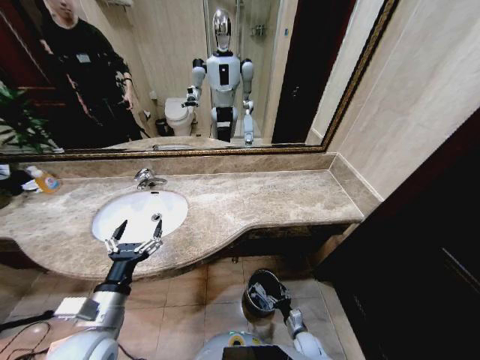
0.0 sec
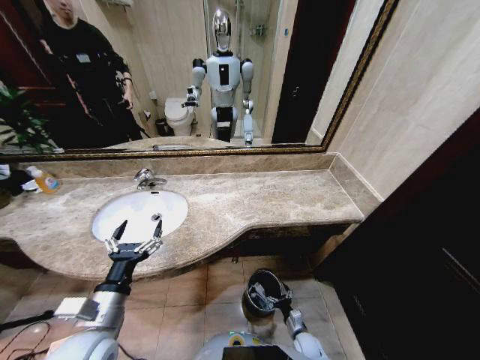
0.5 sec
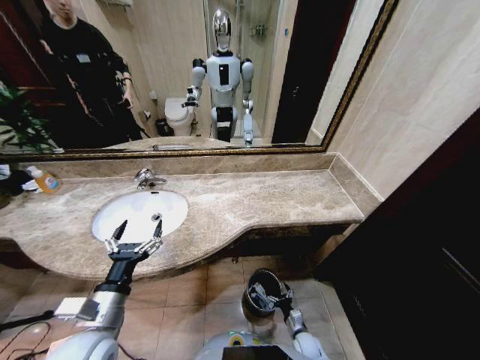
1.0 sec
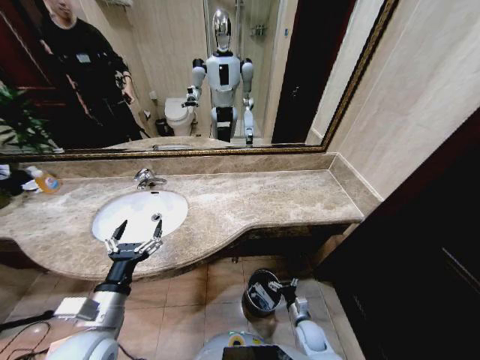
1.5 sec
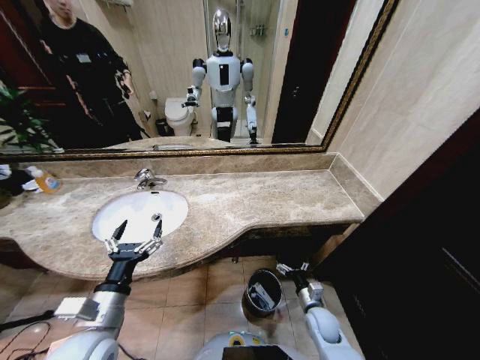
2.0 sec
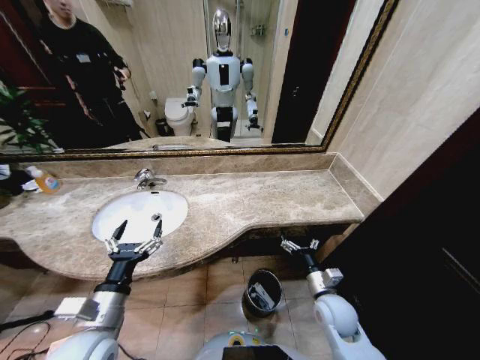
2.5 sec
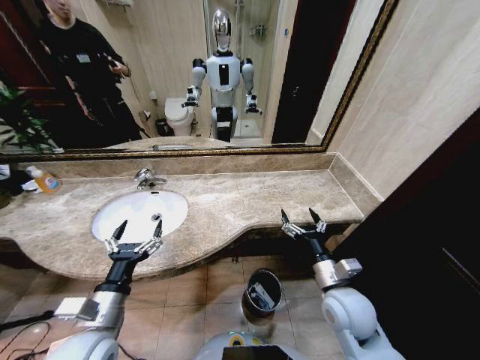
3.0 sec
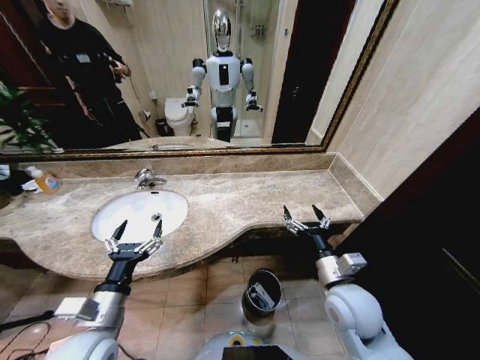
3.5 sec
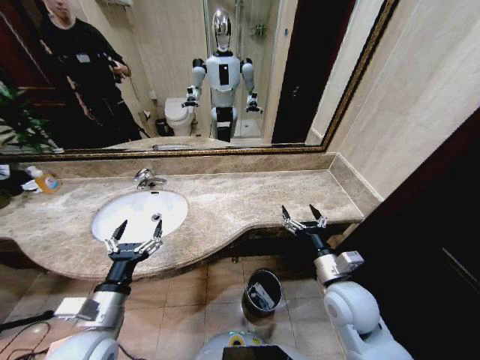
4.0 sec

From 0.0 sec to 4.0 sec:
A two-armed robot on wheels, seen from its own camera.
Task of the whole recording: Pick up the trash from the sink and place it in the trash bin.
From 0.0 sec to 2.0 sec: The right gripper is displaced upward by approximately 15 cm.
From 2.0 sec to 4.0 sec: The right gripper goes about 25 cm upward.
